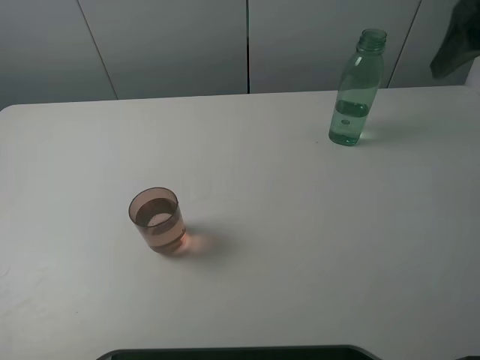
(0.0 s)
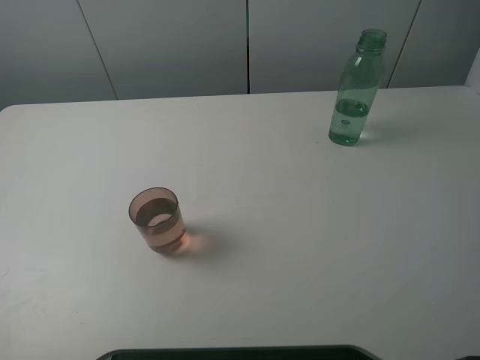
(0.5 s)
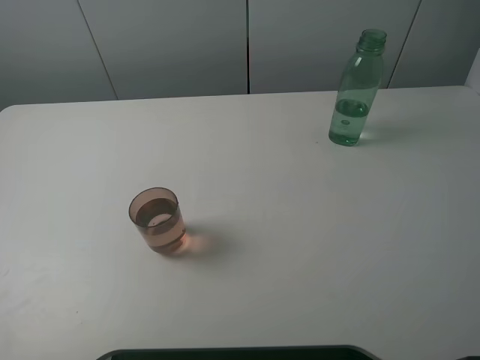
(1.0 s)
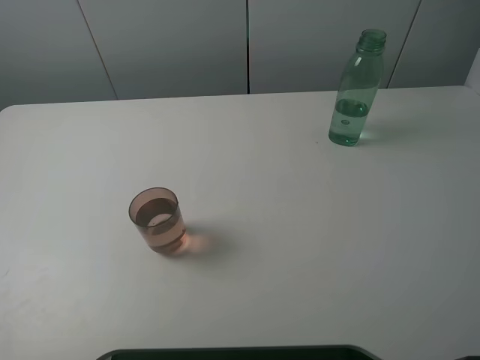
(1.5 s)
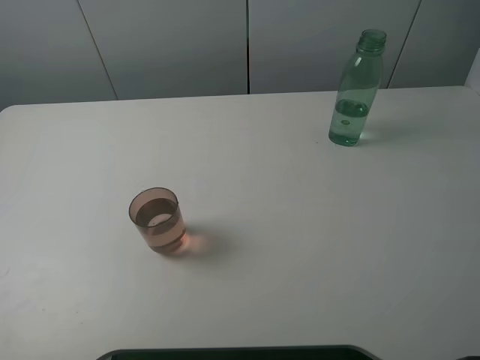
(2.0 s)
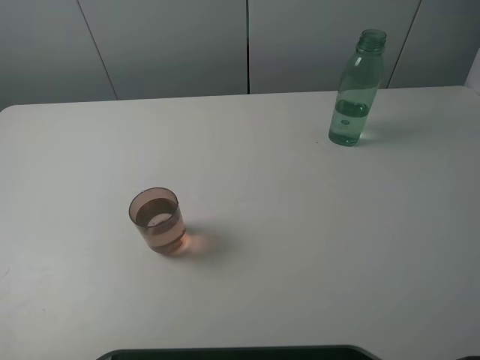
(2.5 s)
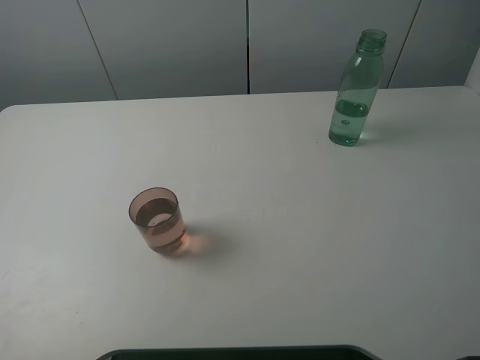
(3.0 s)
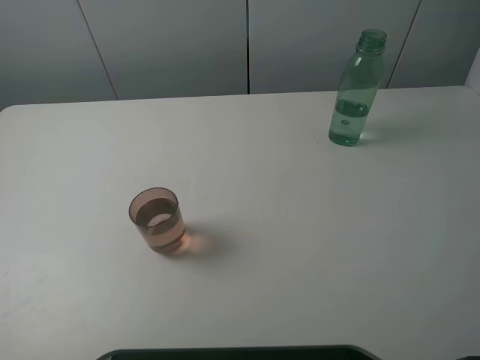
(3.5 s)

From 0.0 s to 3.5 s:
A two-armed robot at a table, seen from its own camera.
Task of the whole recording: pick up the bottle filled with water and pour it into the pink cup.
From 0.0 s to 2.0 s: The right gripper is displaced backward by roughly 25 cm.
From 2.0 s to 3.5 s: Both grippers stay put.
